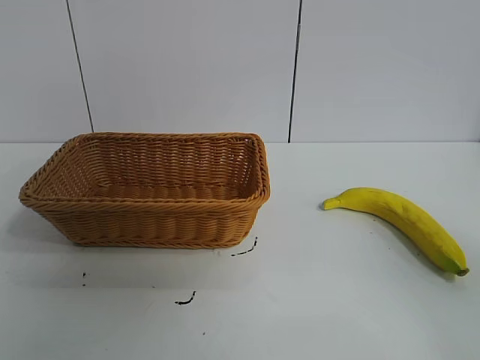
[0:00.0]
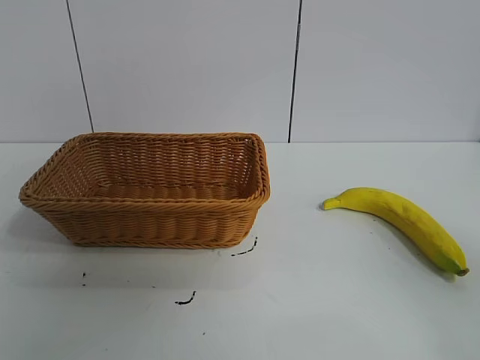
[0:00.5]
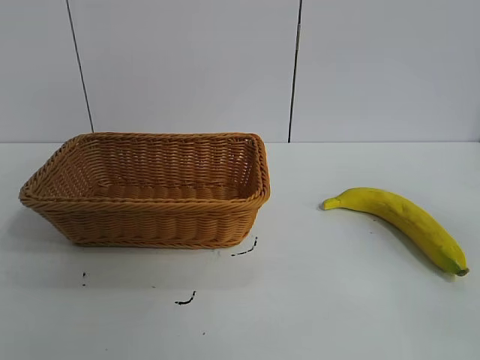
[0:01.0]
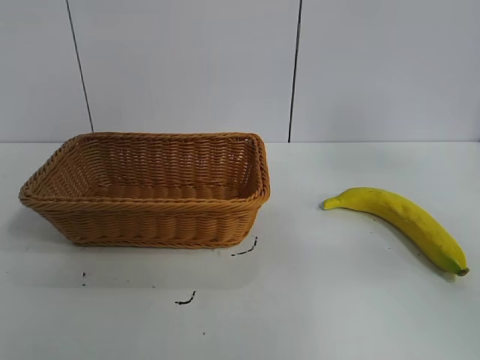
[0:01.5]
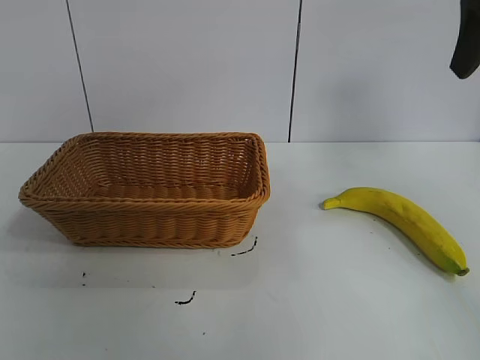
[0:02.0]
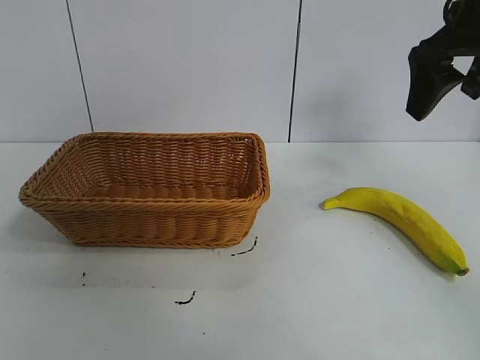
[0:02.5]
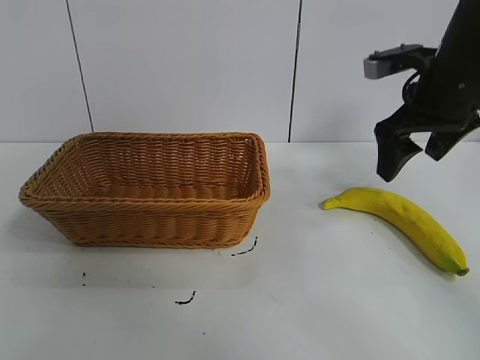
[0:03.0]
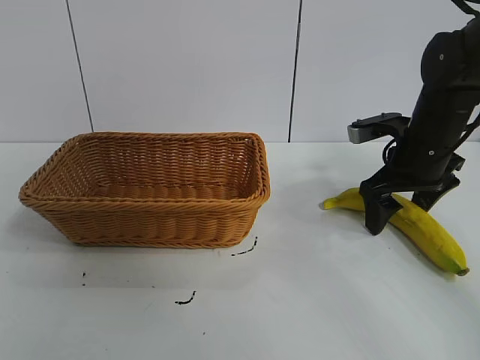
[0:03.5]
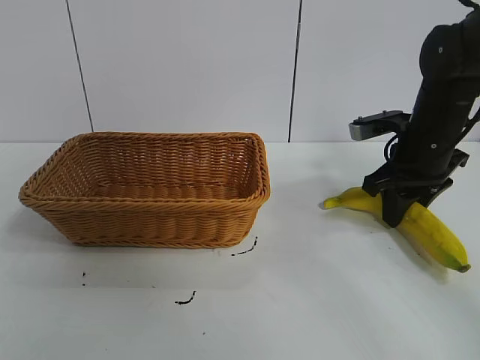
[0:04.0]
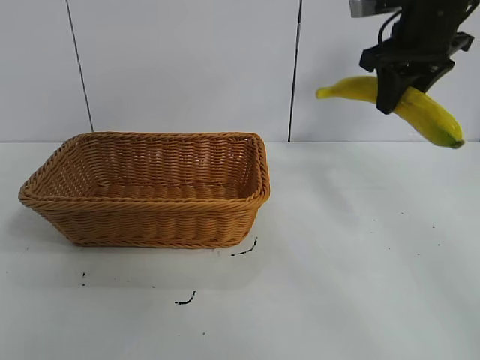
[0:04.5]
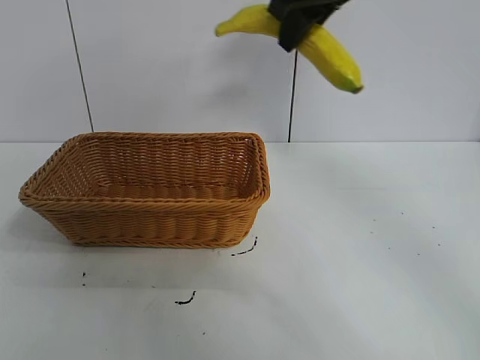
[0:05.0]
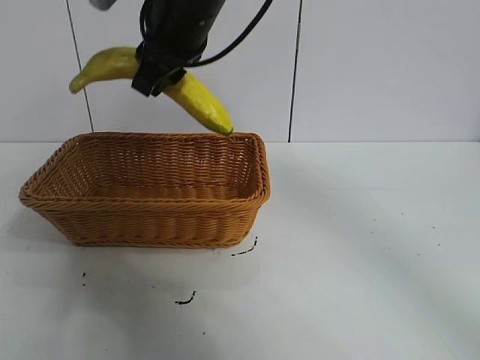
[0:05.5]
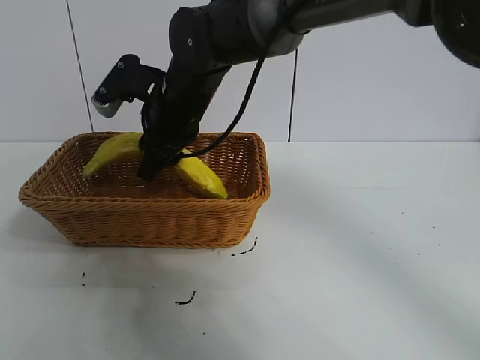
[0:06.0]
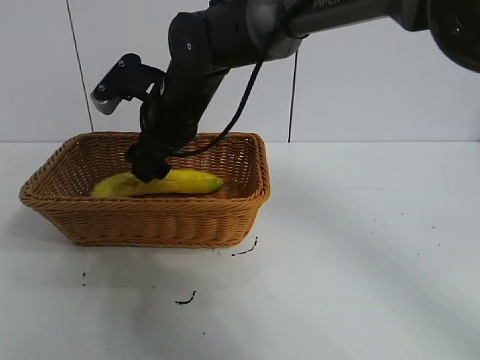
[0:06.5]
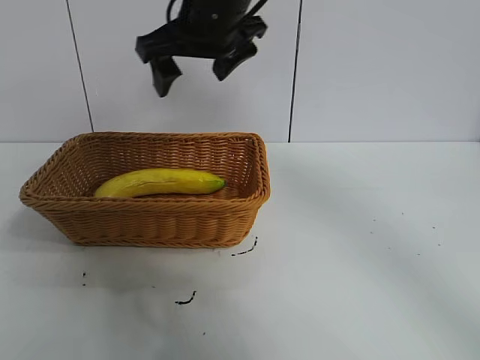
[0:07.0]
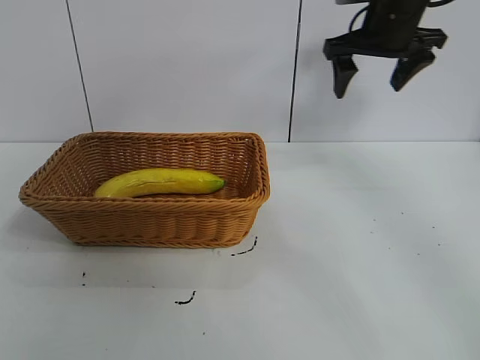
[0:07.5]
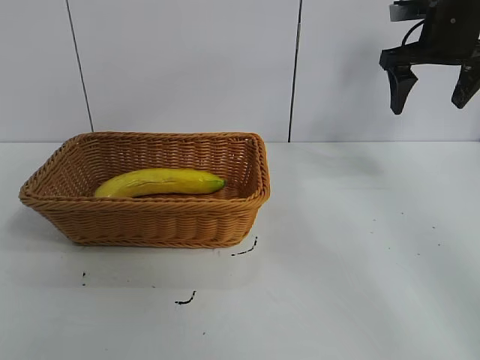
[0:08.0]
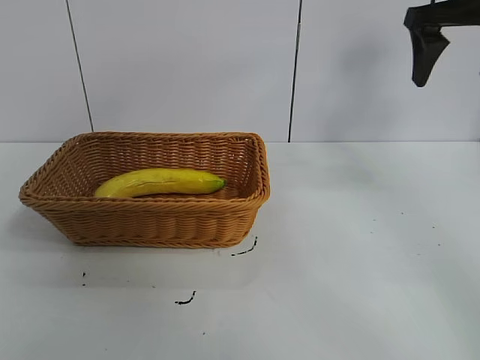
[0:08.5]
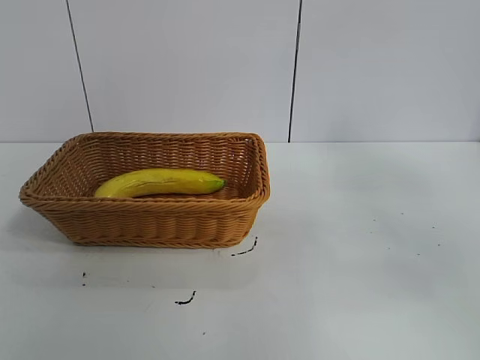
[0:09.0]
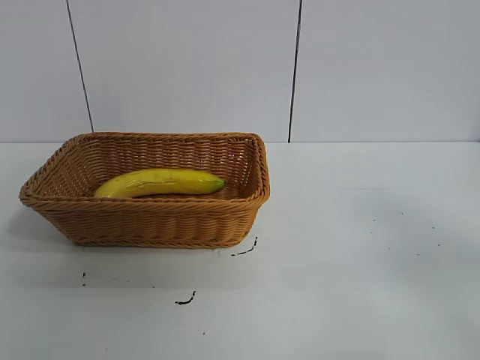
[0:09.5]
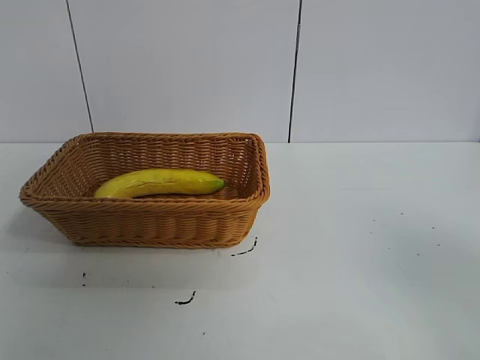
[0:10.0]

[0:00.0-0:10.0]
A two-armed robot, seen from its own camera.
Task of the whole recording: pick up the banana and put it into the basket.
Step, 0:01.0 to 0:03.5: Grasp the banana with right gripper.
Step, 0:04.0 to 0:06.5: Place the banana in the basket with right gripper.
